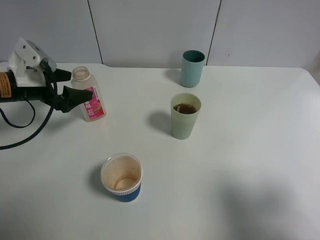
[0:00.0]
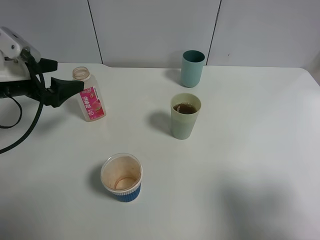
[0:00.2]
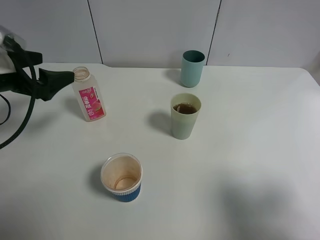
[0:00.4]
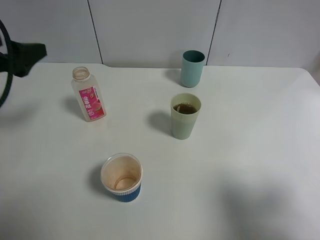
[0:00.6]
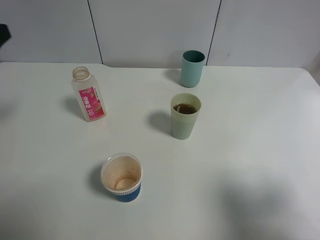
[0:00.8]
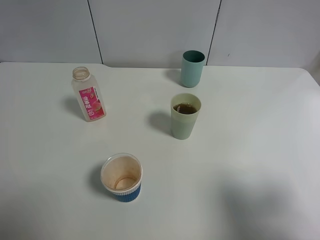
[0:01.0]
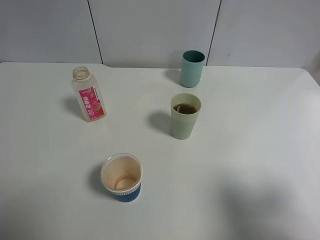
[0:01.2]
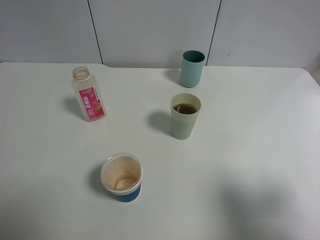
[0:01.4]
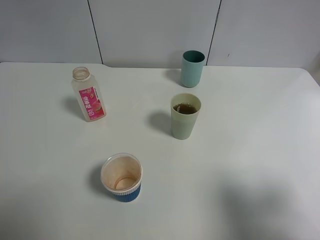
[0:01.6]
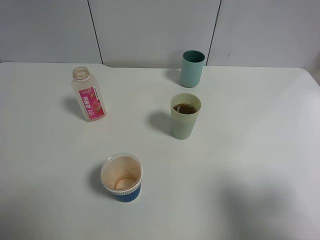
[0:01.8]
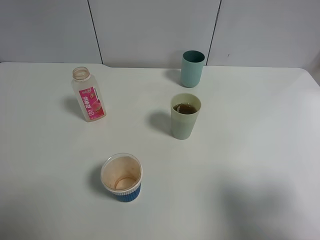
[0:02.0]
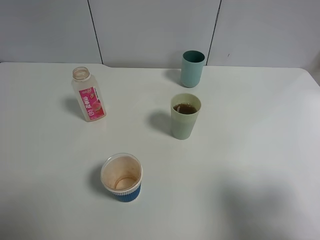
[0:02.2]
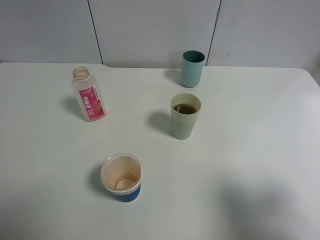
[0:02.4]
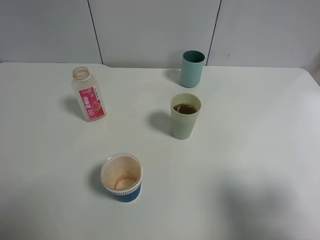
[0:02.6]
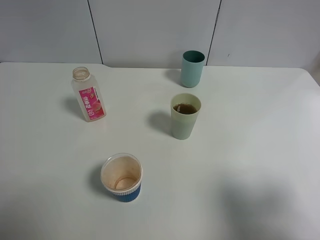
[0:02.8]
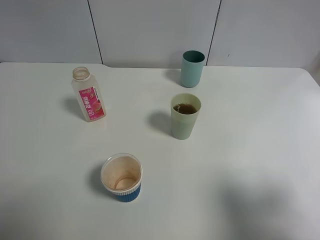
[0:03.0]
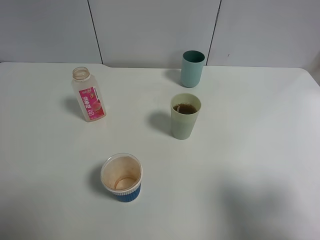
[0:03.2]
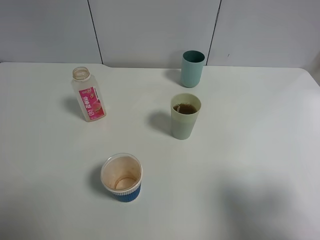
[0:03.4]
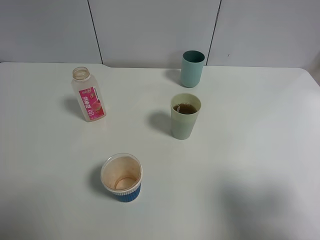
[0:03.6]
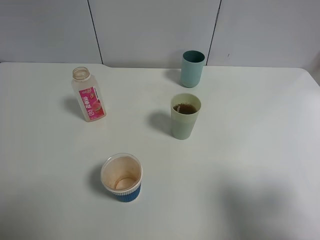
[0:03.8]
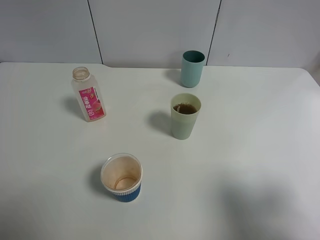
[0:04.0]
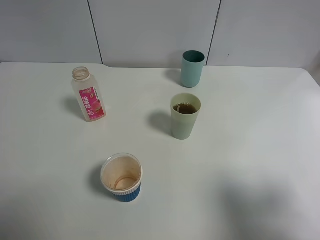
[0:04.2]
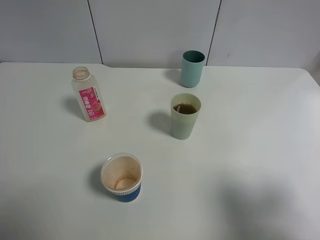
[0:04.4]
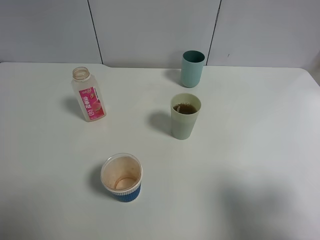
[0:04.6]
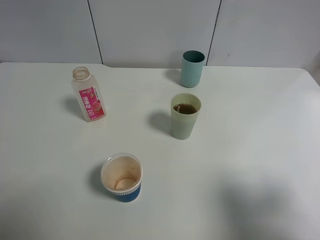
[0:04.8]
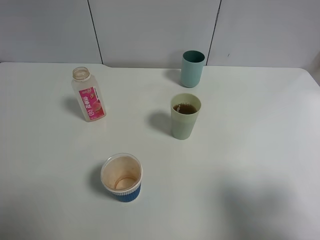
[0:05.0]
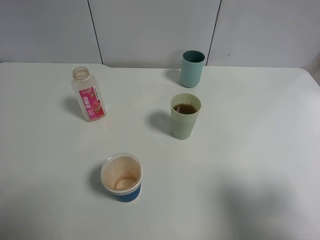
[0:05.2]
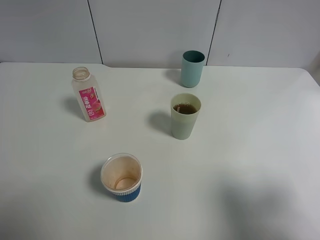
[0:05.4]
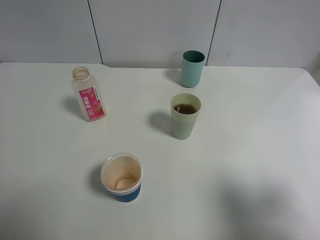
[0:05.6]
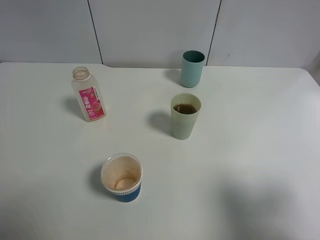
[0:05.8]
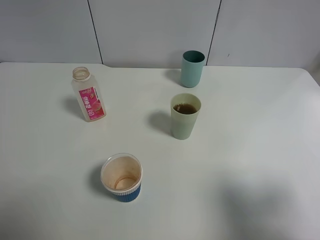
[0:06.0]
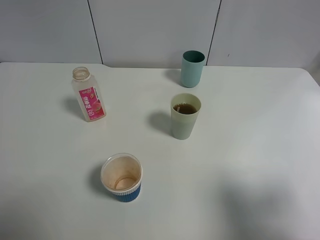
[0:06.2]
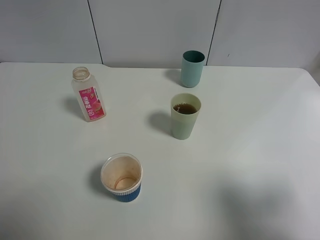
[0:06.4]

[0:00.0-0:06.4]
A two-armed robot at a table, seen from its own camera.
Task of the whole recording: use a gripper to hold the bottle of the drink and pour it into a random cup.
0:00.0 to 0:01.6: The left gripper travels backward and upward by about 35 cm.
0:04.8 to 0:06.4: Both grippers stay put.
